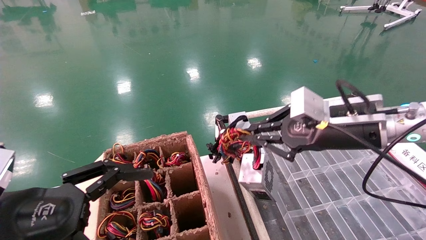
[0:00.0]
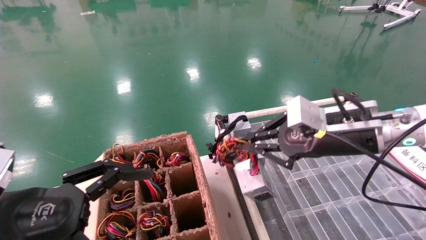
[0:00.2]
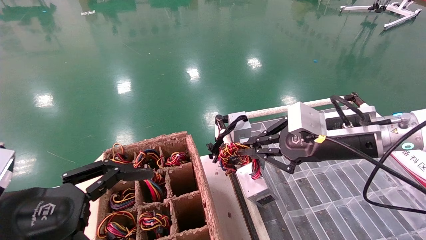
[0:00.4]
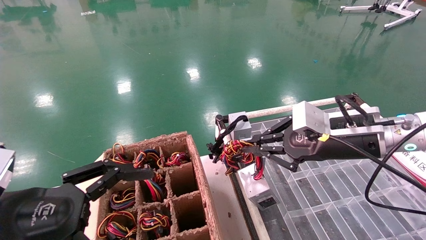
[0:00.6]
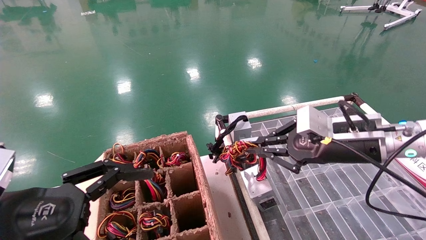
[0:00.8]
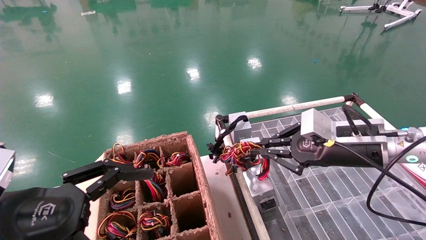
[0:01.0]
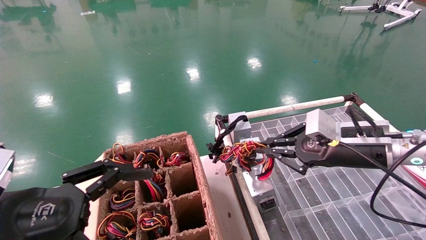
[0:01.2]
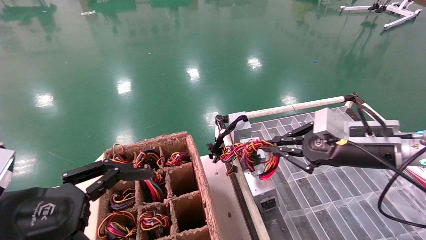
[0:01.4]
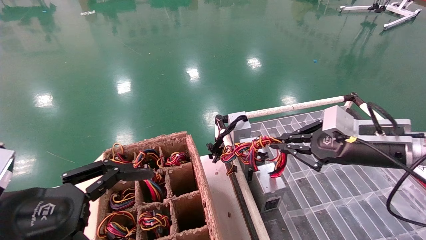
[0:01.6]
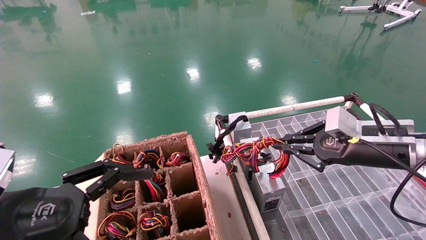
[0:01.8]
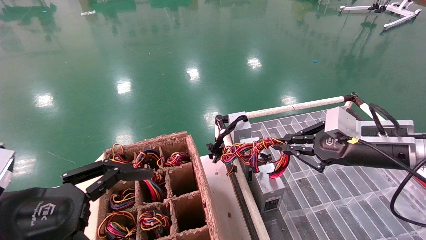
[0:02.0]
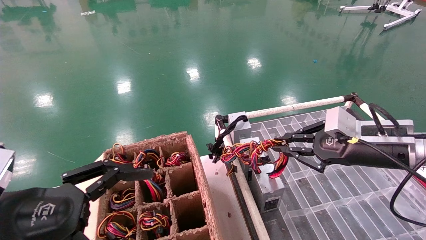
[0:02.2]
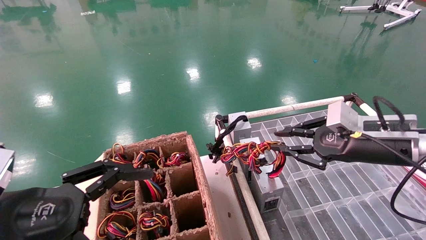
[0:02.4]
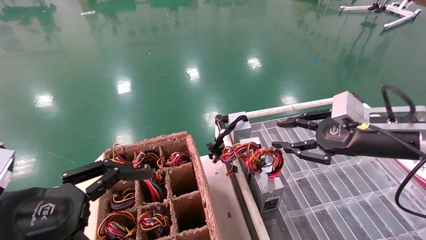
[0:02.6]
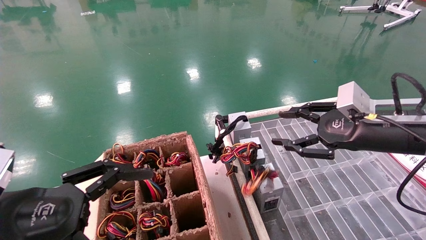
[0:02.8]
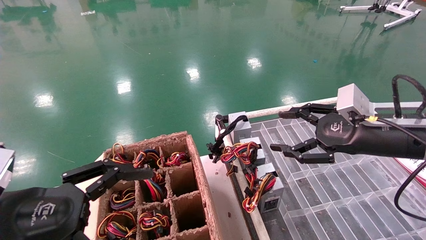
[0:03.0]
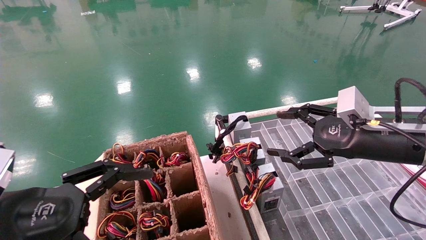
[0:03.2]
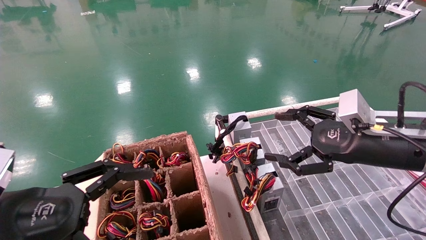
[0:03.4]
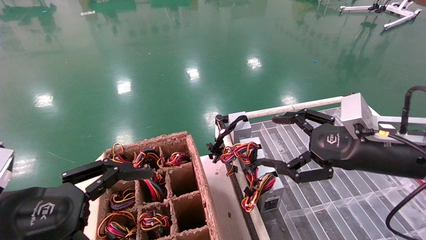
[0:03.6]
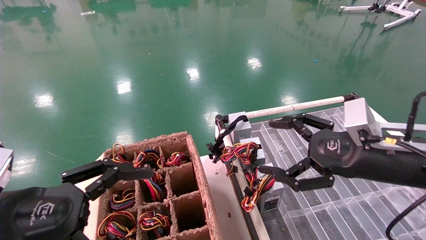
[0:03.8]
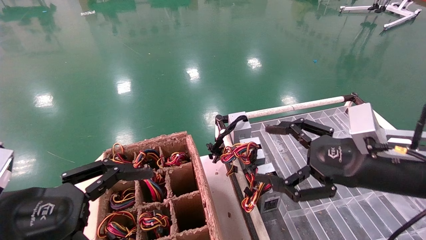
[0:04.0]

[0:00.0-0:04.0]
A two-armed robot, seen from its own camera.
Step, 0:00.0 to 0:02.4: Place the power supply on the operating table.
0:00.0 to 0:01.4: The right gripper heads to the right, covering roughly 5 cm.
0:01.4 to 0:02.6: The grippers make only small movements.
0:02.6 to 0:04.0: The right gripper is displaced backward by roughly 5 cm, and opens.
